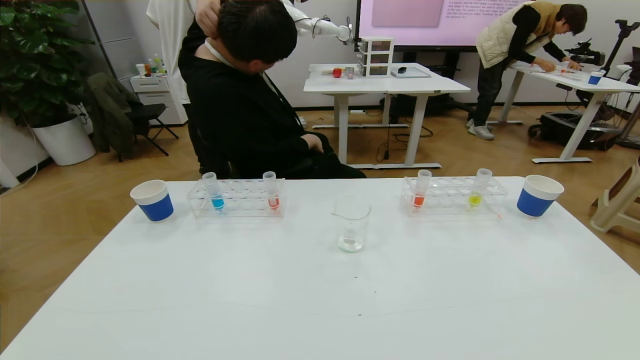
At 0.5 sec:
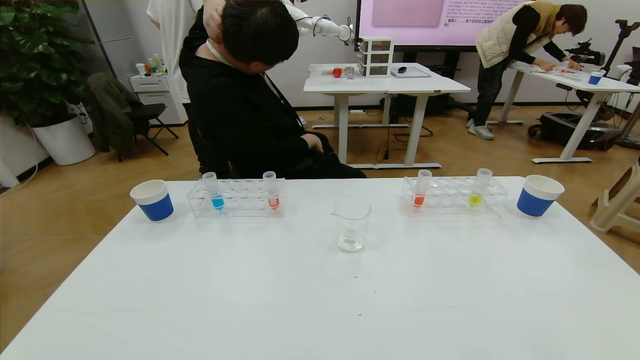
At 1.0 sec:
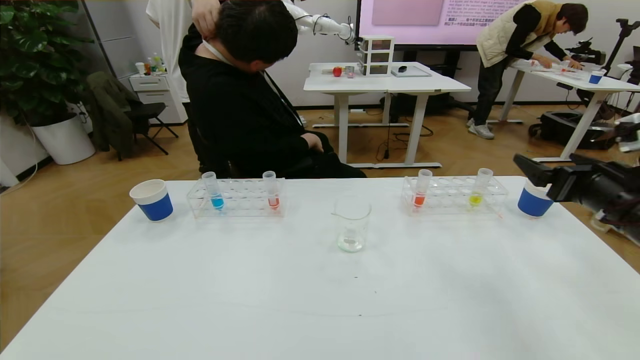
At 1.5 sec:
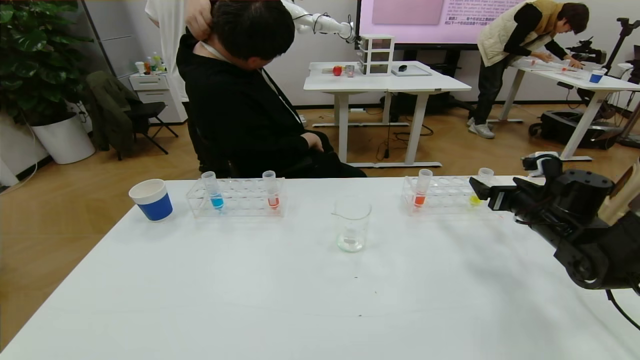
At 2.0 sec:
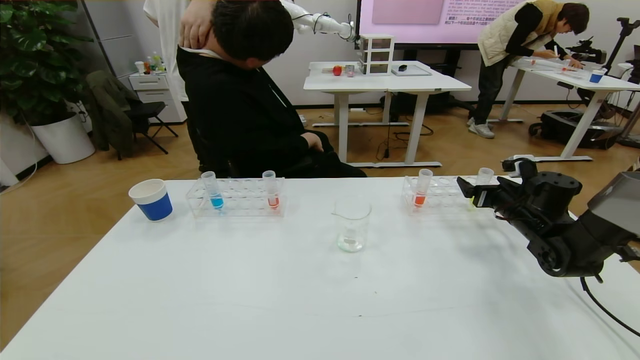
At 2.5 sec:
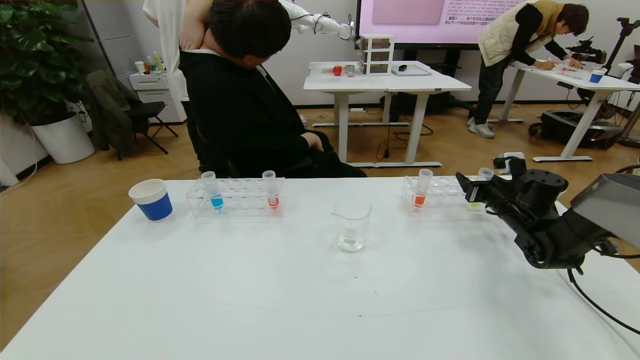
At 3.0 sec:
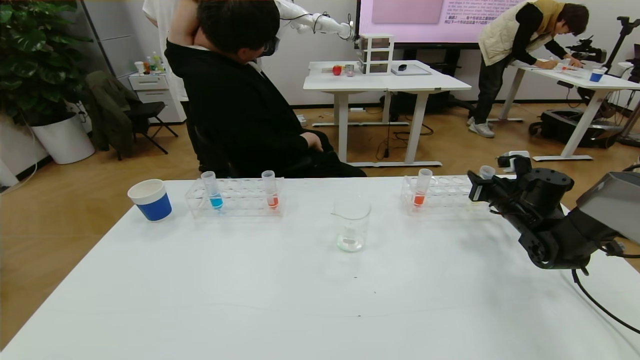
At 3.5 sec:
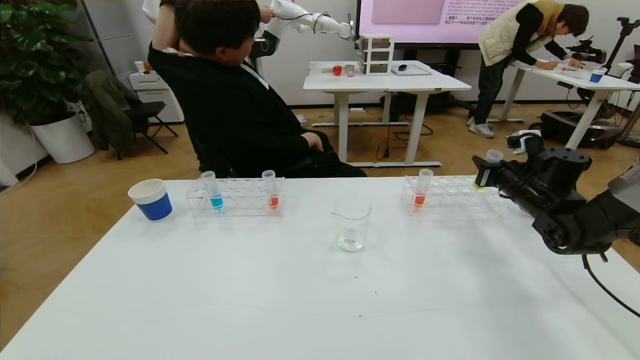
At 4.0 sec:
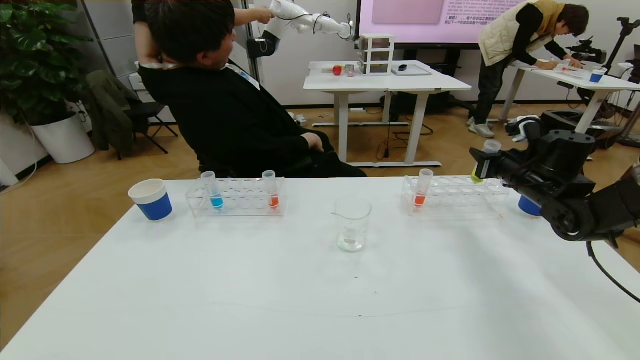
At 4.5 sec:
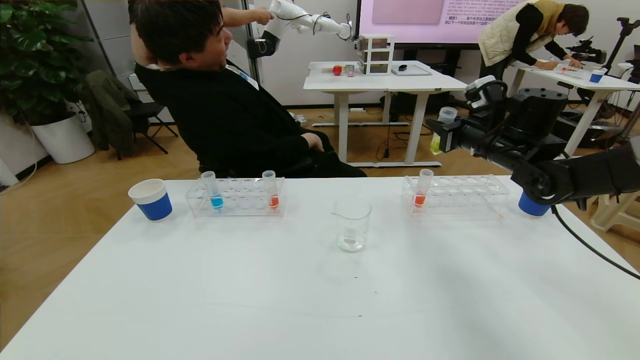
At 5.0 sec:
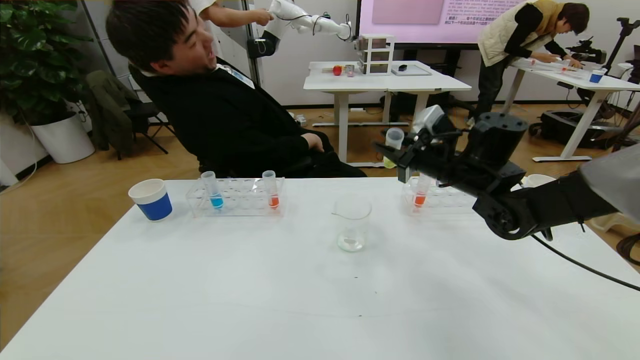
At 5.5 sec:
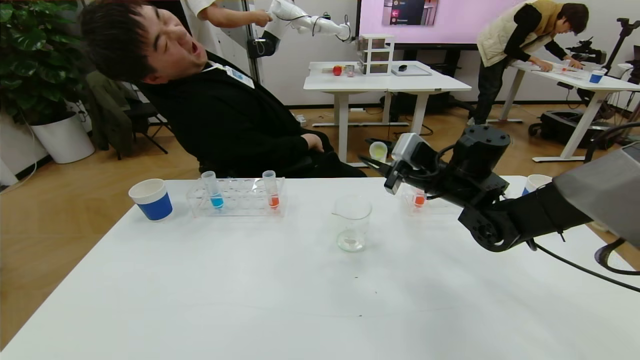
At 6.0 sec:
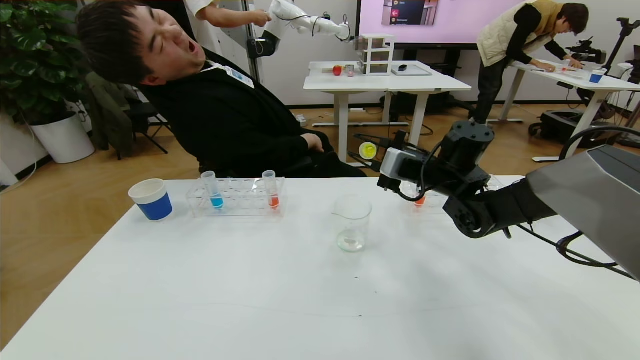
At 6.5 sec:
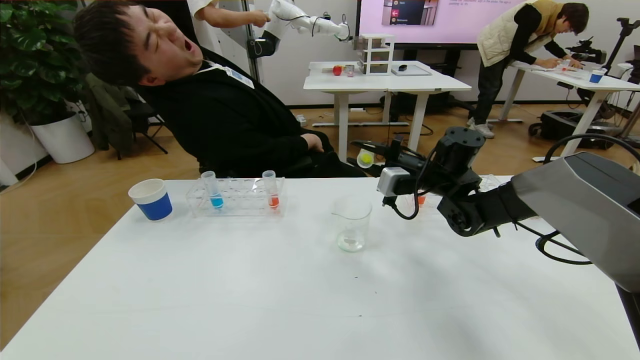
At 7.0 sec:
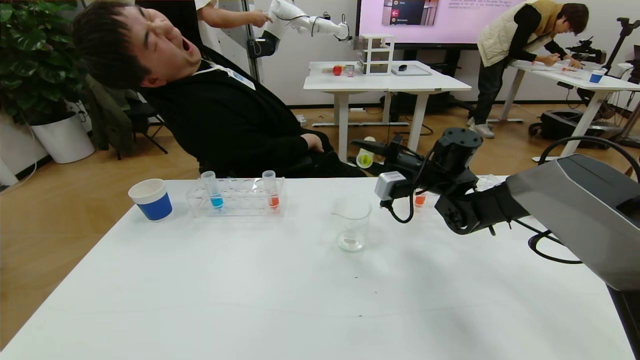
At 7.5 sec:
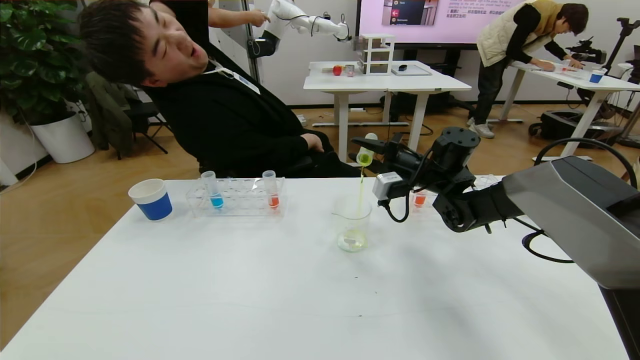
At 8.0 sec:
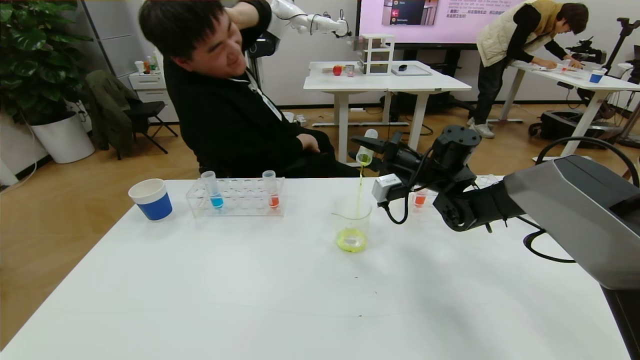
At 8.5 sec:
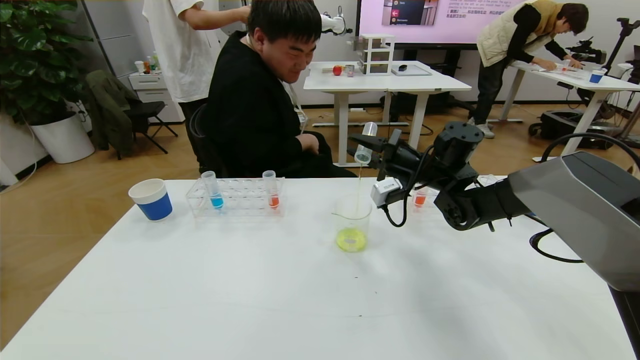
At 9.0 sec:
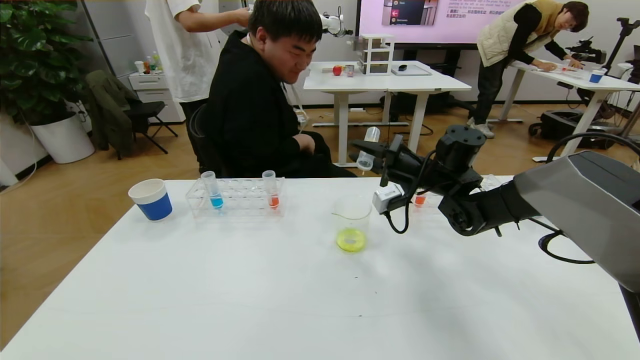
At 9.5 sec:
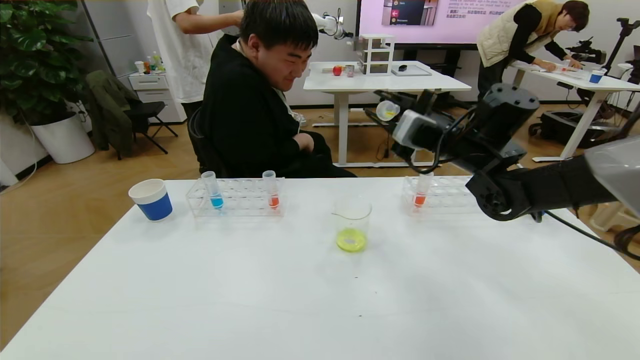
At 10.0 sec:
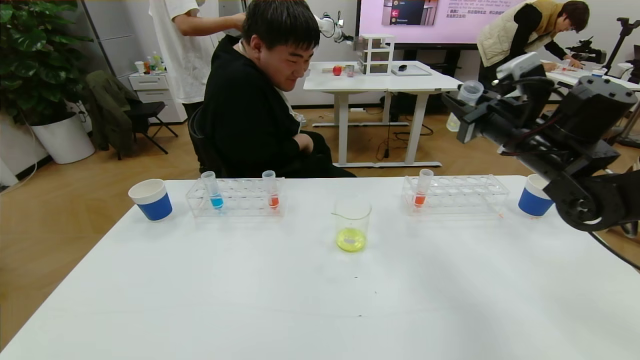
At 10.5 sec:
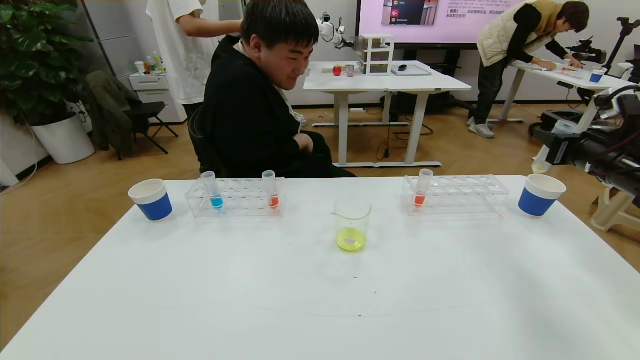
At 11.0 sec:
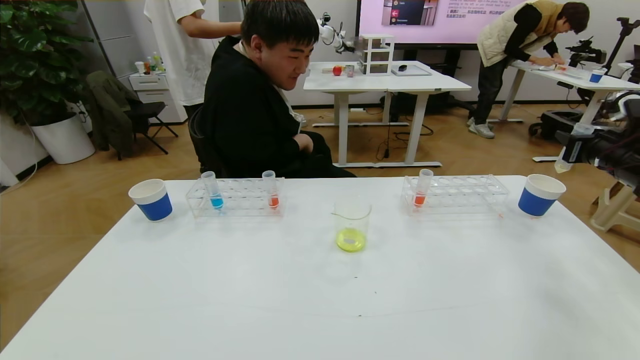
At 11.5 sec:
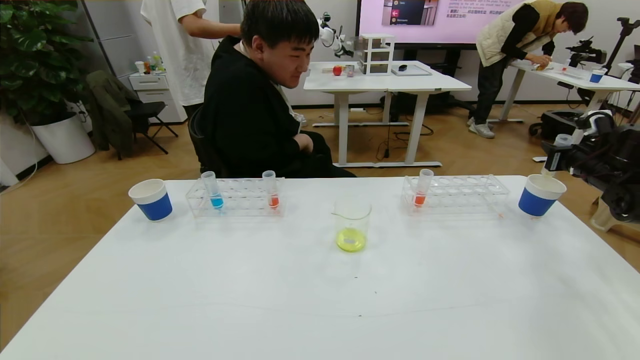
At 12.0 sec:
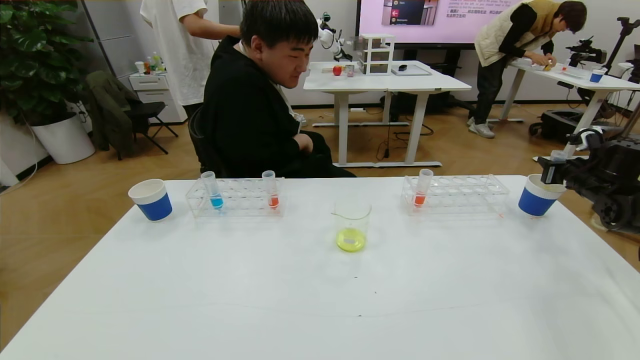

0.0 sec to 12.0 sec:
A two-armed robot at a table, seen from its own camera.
Task of the whole recording: pick up the test tube with yellow pigment and the test tube with blue pigment by grippers and pour them into the beaker.
0.0 sec to 2.0 sec: The right gripper heads forward, covering some 40 cm.
2.0 sec to 4.0 sec: The right gripper goes some 10 cm upward, and closes up.
4.0 sec to 6.0 sec: The right gripper heads to the left, covering roughly 20 cm.
8.0 sec to 10.0 sec: The right gripper goes about 15 cm to the right, upward and backward.
10.0 sec to 12.0 sec: The right gripper is displaced to the right and downward by about 25 cm.

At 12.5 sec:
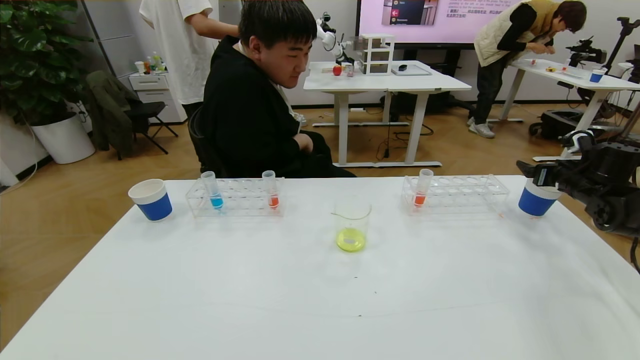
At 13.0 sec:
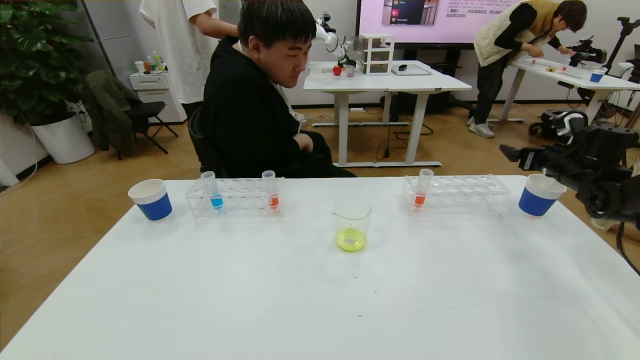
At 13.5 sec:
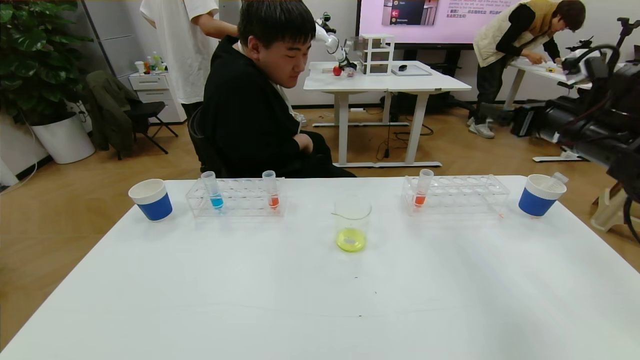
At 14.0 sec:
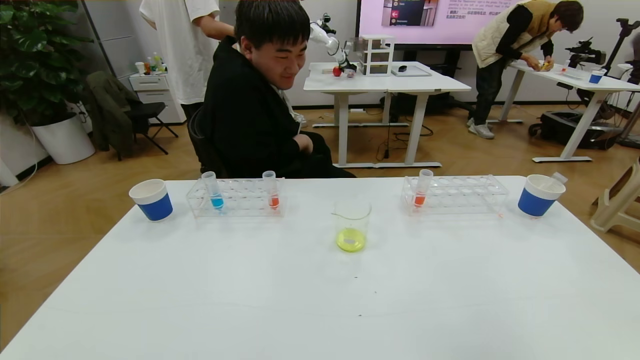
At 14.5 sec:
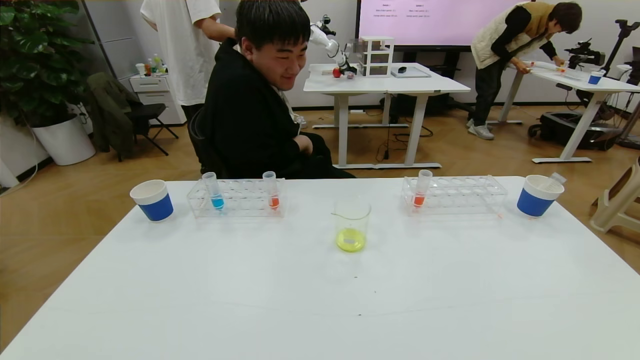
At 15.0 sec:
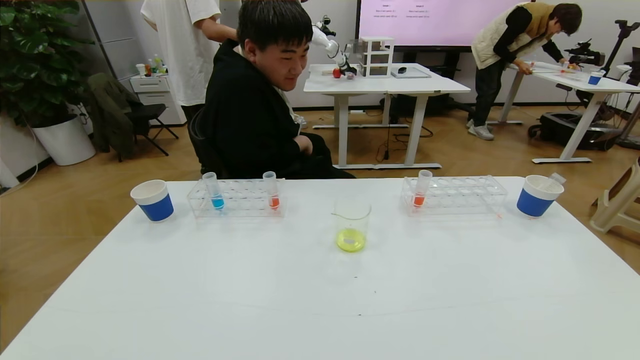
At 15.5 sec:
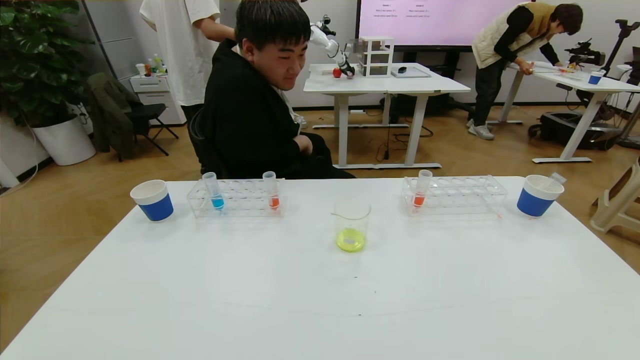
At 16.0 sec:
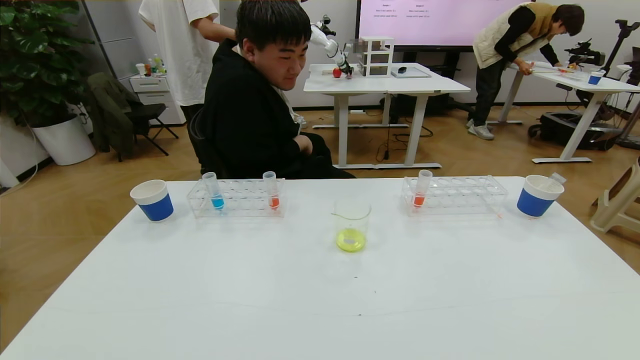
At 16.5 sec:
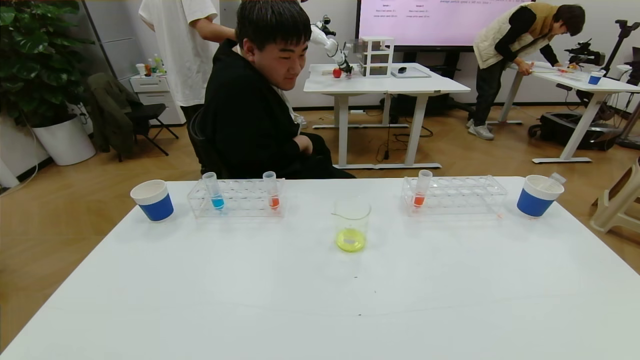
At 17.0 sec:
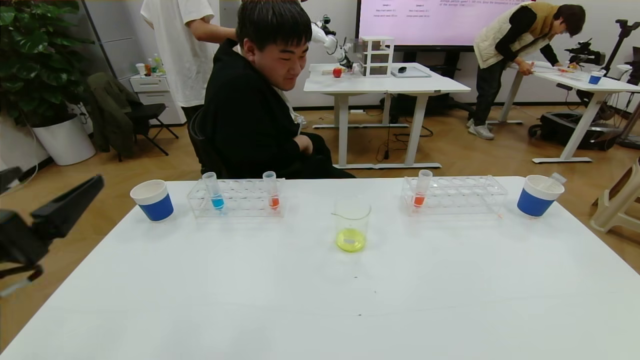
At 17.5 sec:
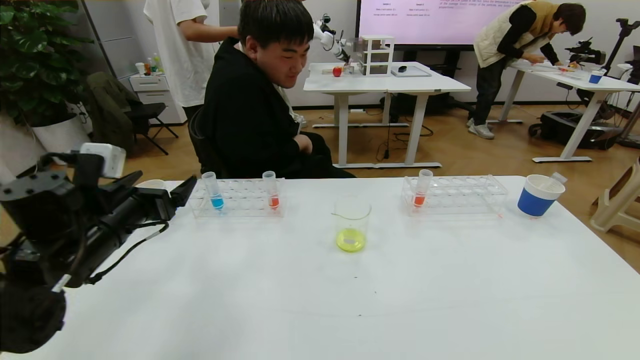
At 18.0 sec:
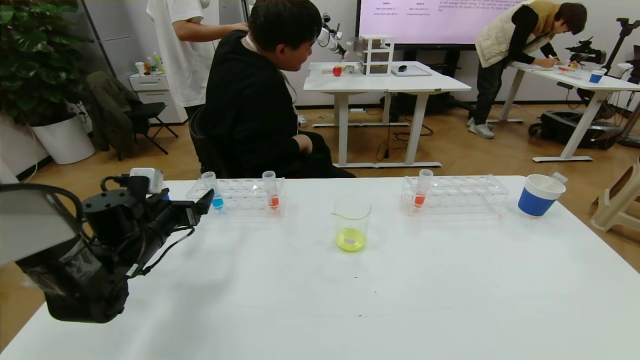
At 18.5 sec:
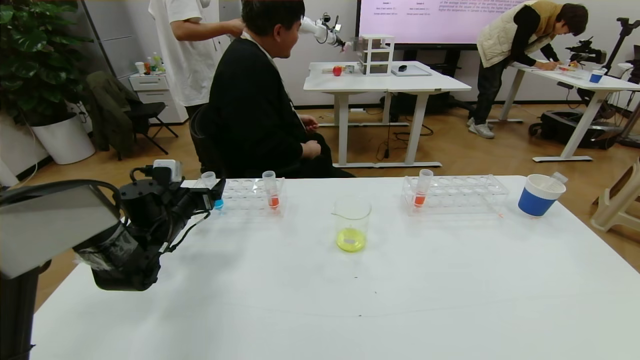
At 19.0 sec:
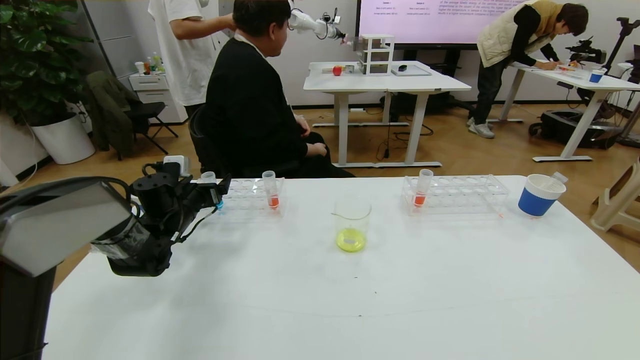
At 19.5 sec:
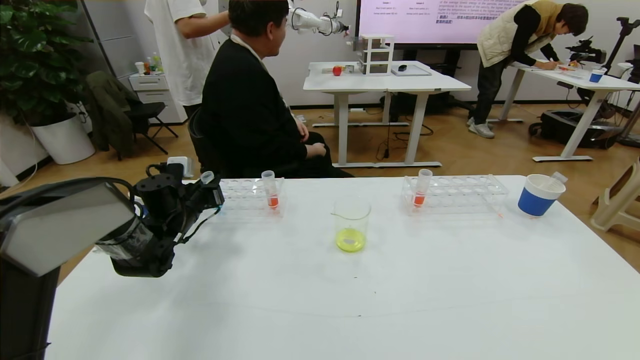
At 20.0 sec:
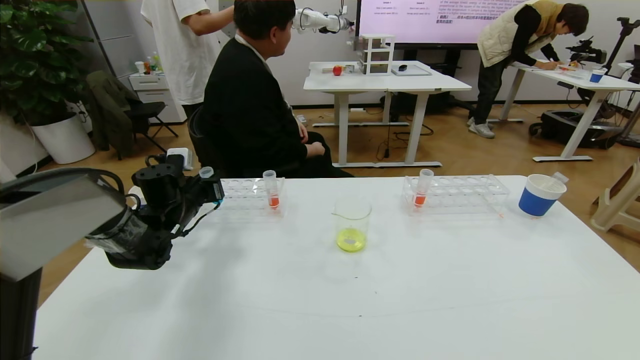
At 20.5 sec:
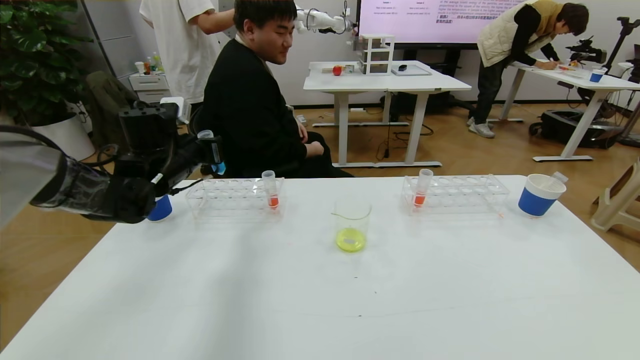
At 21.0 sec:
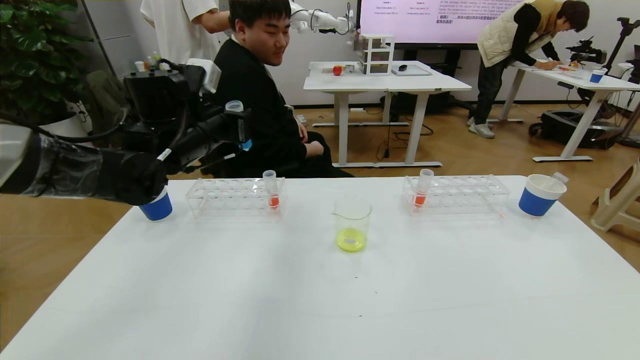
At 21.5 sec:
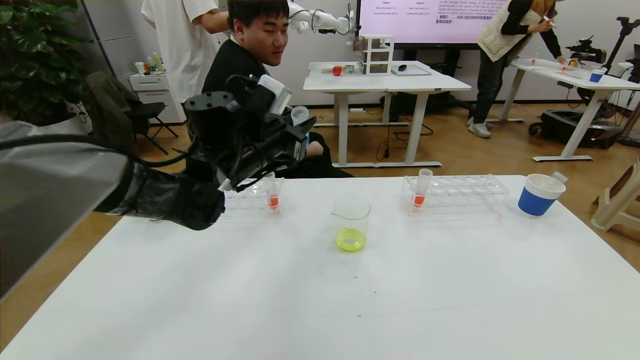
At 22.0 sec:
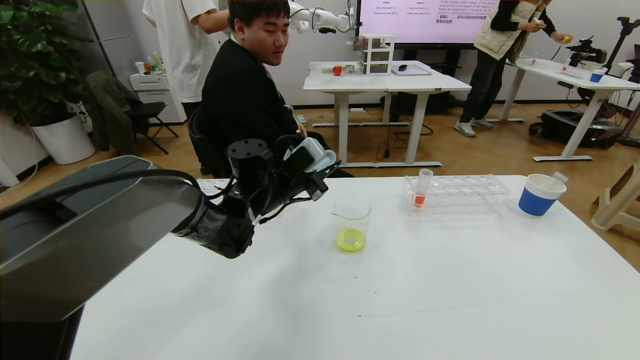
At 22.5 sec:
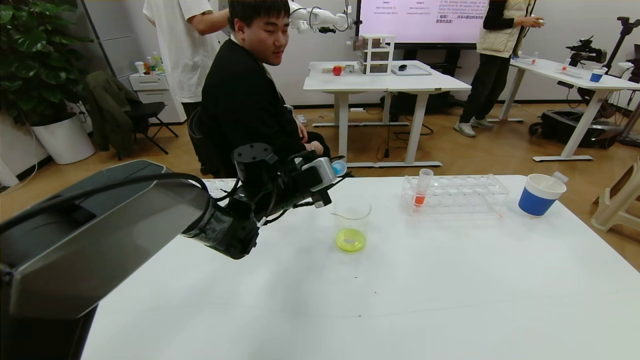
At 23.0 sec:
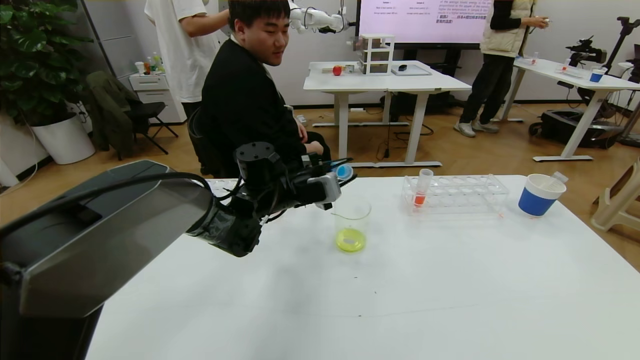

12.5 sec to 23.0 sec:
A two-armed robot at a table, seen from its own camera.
Task of the whole recording: pick up the test tube with yellow pigment and the test tube with blue pigment by grippers and pour them into the beaker.
Step, 12.5 sec to 15.0 sec: Pour the yellow reagent into the graduated cylinder and place the test tube into the paper cup.
12.5 sec to 14.5 sec: The right gripper travels backward by about 50 cm.
14.5 sec to 16.5 sec: The right gripper is displaced downward by about 20 cm.
16.5 sec to 19.0 sec: The left gripper heads forward, covering some 40 cm.
19.0 sec to 21.0 sec: The left gripper is displaced upward and to the right by roughly 20 cm, and closes up.
21.0 sec to 23.0 sec: The left gripper heads to the right and downward, covering approximately 15 cm.
